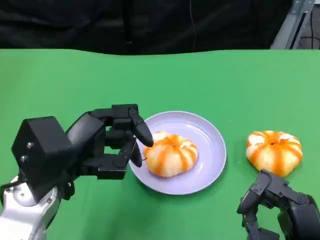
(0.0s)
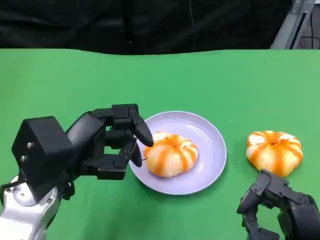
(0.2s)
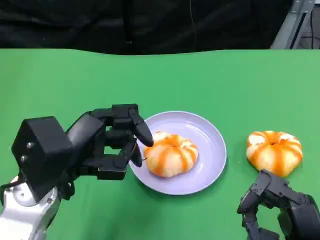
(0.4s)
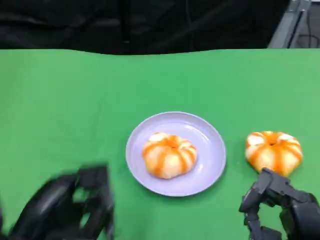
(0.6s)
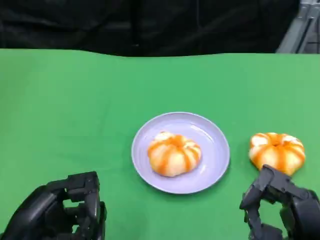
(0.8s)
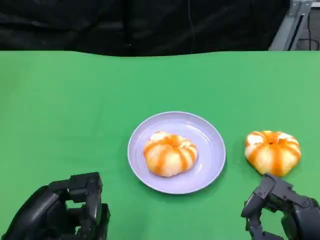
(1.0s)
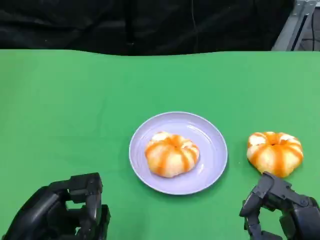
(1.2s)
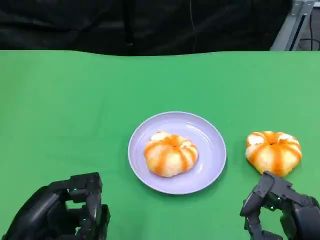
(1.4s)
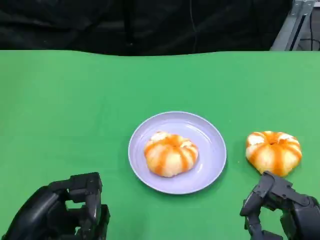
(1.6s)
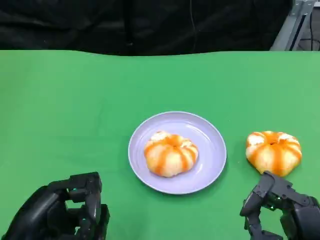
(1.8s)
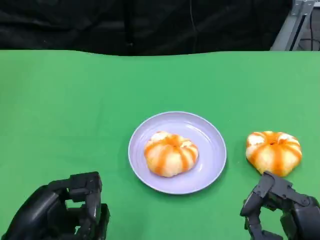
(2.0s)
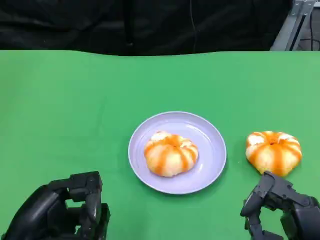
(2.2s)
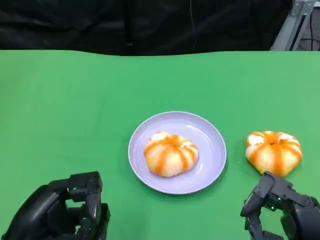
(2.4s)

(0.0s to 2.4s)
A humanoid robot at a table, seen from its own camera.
Task of the whole recording: Grasp the bread from the table and place it into the plate.
0.0s - 1.2s: The left hand is displaced backward by some 10 cm.
1.2s - 2.4s: The two hands keep their place.

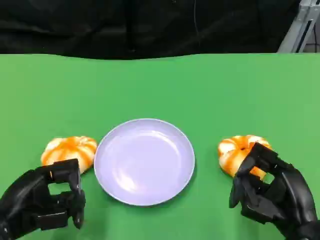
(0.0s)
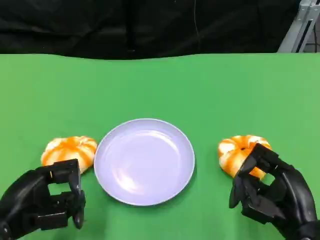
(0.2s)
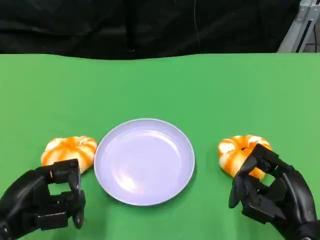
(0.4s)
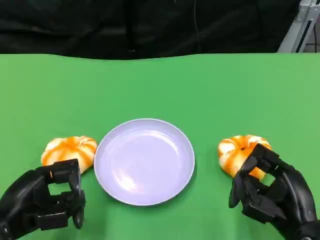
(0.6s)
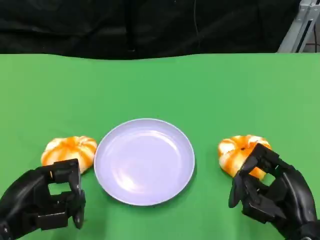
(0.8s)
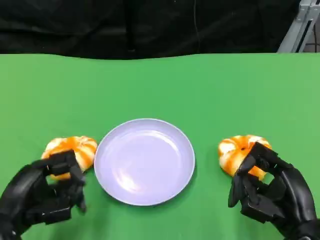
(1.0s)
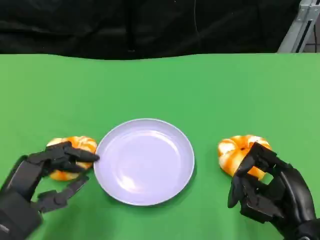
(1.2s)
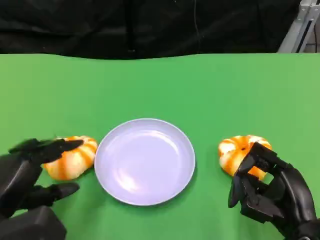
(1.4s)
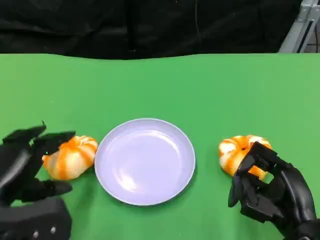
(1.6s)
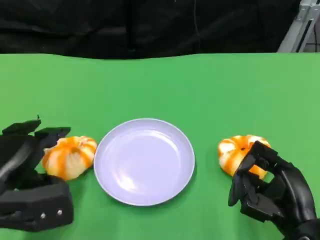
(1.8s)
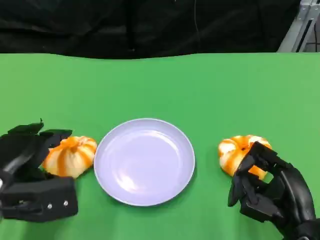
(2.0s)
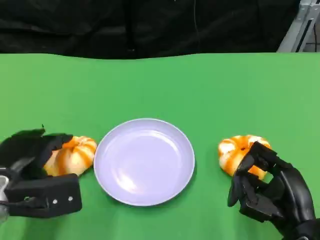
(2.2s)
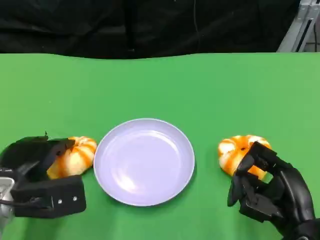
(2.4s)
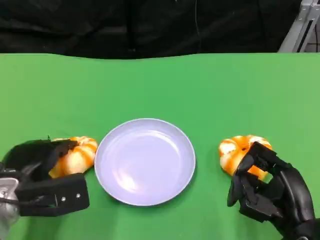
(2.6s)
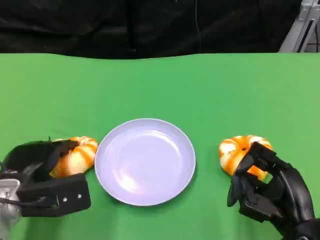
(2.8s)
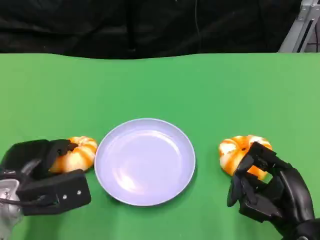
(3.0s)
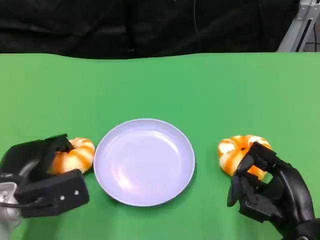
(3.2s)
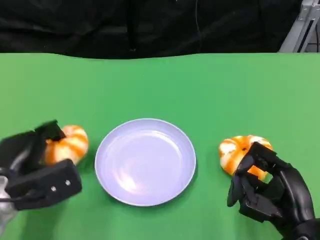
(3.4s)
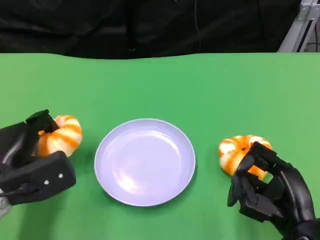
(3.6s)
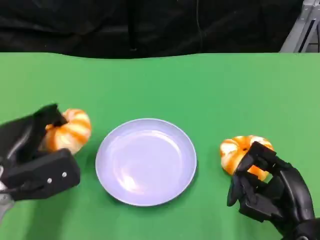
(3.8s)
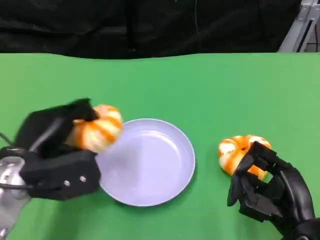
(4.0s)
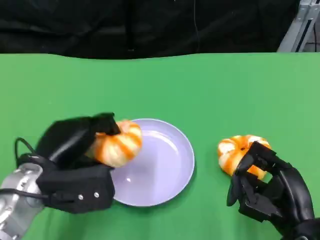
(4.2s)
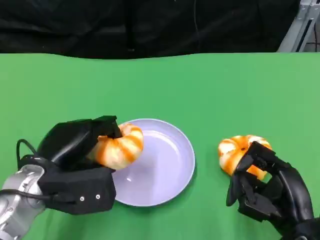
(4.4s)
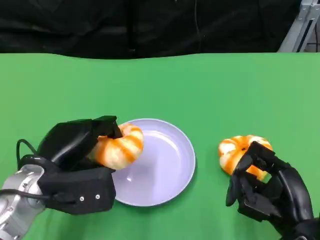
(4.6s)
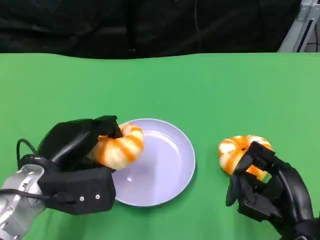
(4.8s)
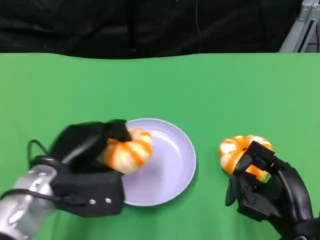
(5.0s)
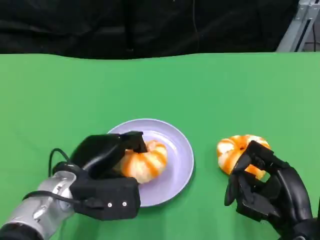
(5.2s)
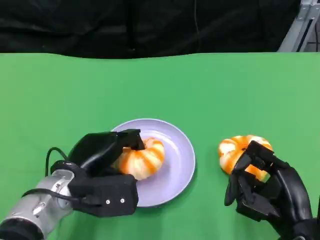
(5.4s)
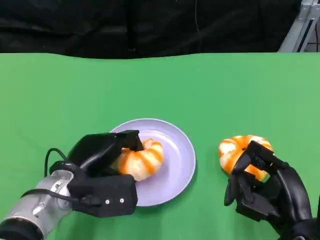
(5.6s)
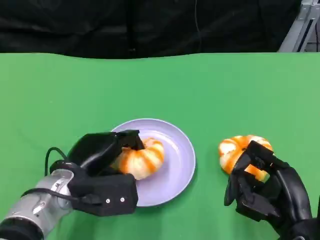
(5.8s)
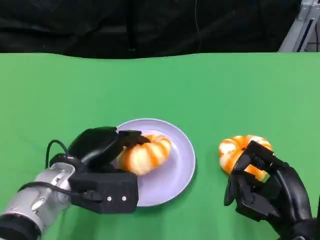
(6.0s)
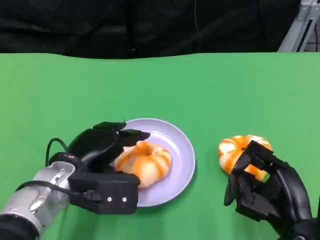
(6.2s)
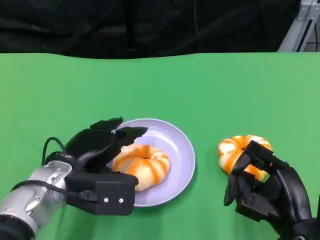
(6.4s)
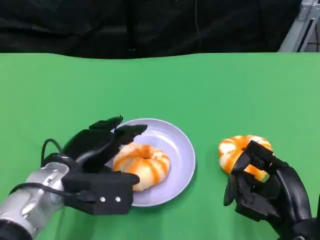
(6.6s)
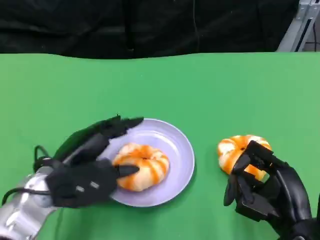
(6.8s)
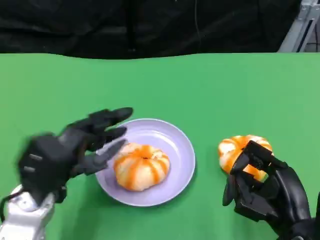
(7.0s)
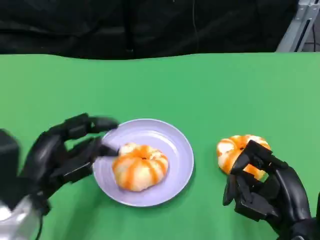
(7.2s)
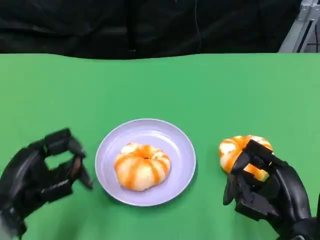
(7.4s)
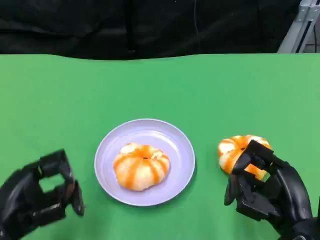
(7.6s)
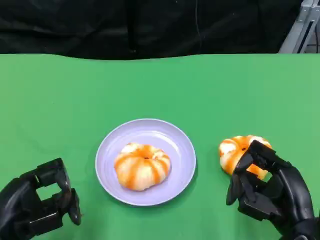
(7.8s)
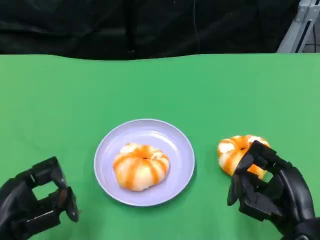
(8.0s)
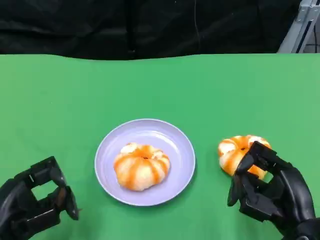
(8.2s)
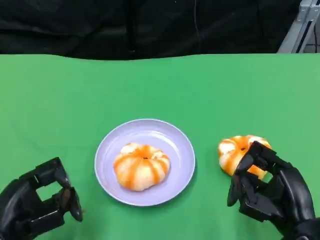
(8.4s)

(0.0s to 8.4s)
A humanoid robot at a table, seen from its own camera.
Task of the whole recording: Grasp the bread from the table and place it into the plate.
1.4s - 2.8s: The left hand heads forward, covering about 5 cm.
2.8s - 4.2s: The left hand shifts by approximately 5 cm.
4.2s - 5.6s: The left hand moves some 5 cm.
5.6s - 7.0s: The left hand ends up some 5 cm from where it was.
7.0s - 8.4s: The left hand moves backward and to the left, some 10 cm.

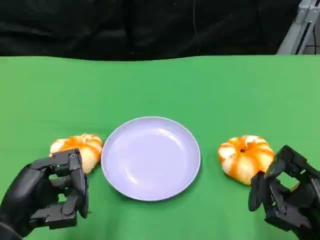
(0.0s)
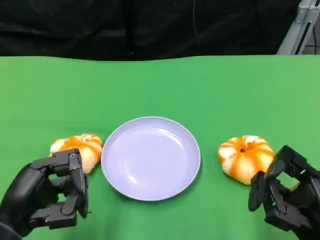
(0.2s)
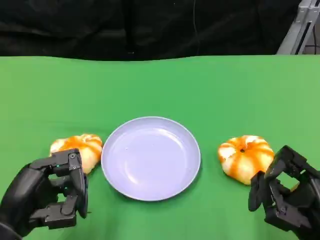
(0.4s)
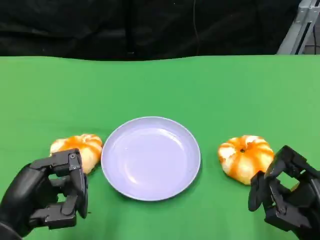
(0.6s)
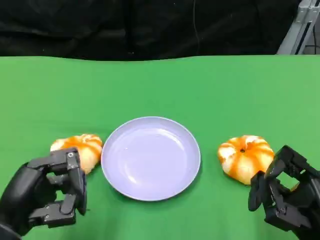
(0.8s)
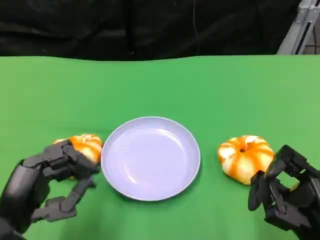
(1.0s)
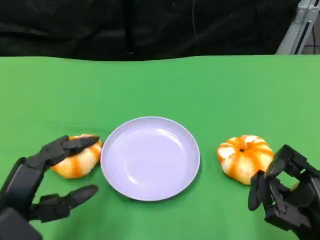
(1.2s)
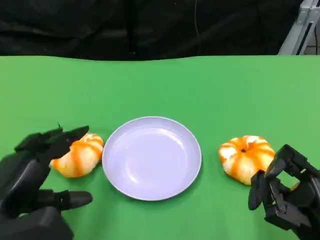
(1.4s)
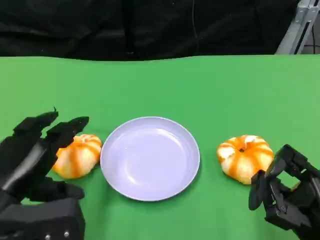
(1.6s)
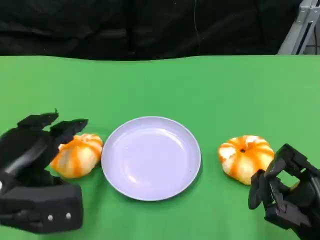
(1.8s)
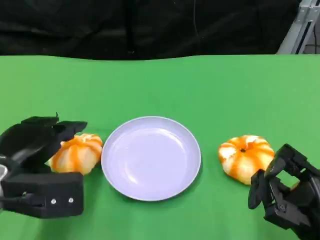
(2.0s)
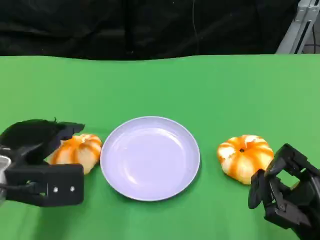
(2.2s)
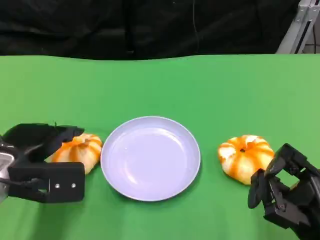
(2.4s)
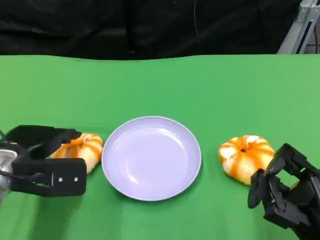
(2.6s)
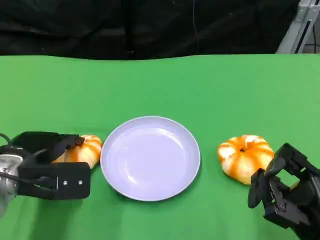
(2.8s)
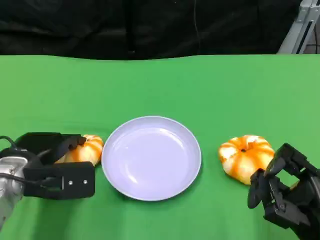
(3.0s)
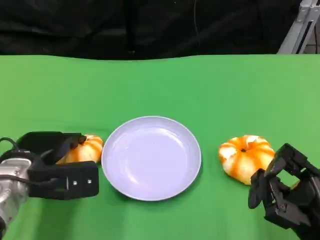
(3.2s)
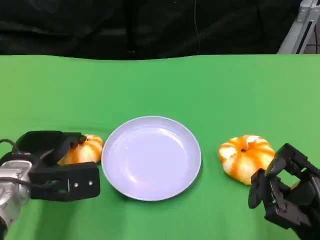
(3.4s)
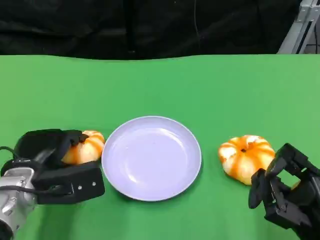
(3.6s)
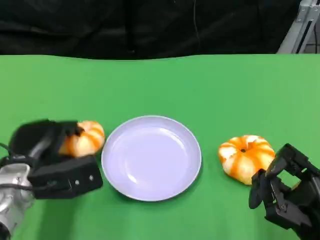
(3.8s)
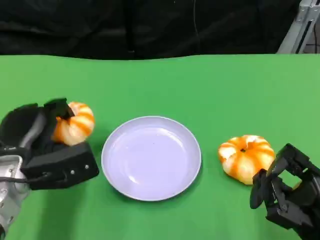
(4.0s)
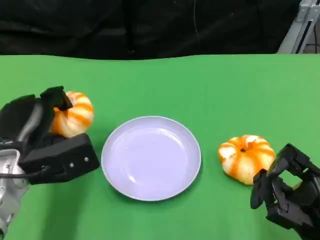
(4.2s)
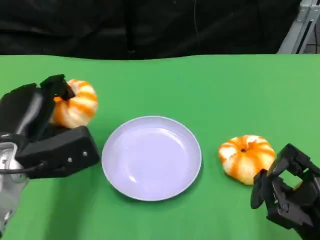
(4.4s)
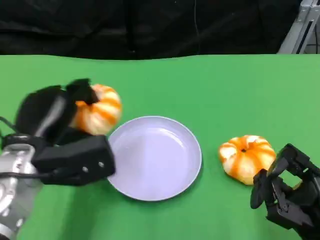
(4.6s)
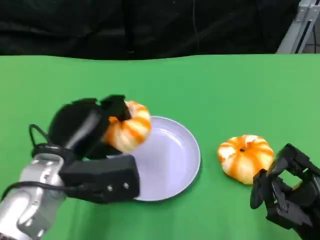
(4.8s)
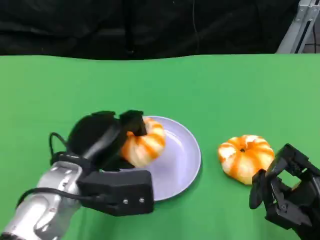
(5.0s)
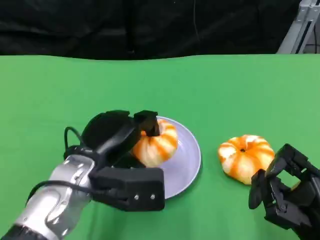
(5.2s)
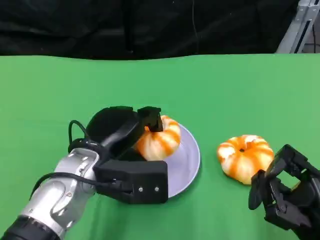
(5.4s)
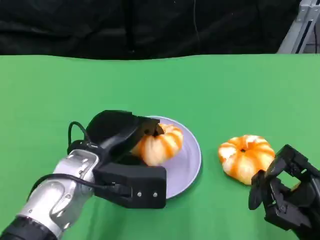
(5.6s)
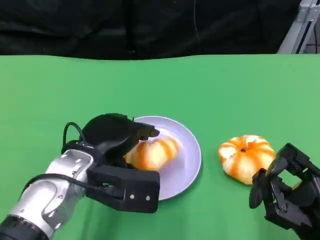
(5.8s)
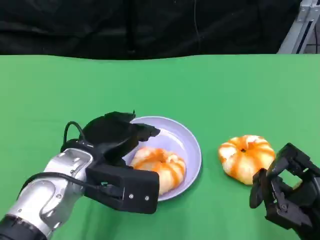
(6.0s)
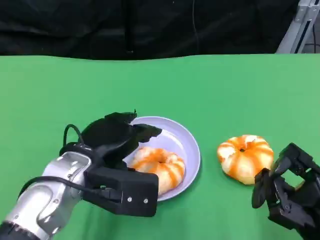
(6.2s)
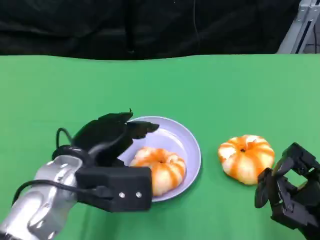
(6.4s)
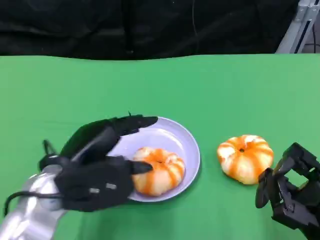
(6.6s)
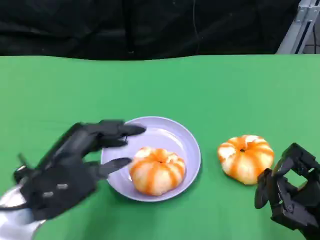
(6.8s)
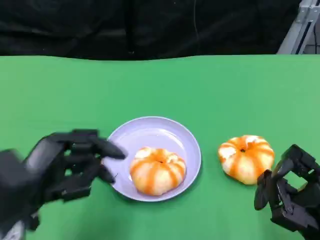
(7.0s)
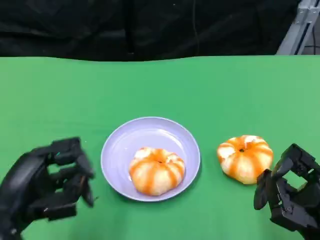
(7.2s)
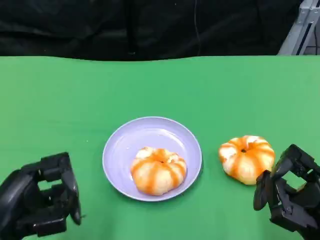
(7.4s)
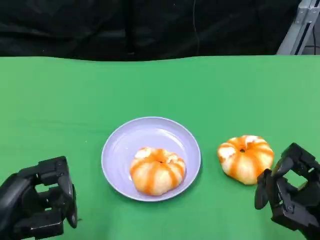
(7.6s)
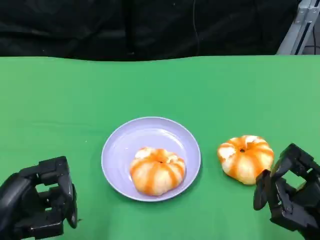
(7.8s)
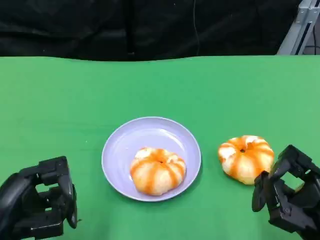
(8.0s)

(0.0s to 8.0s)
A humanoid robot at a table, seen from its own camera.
Task of the whole recording: Grasp the bread from the table and place it into the plate.
1.6s - 3.2s: The left hand heads forward and downward, covering some 10 cm.
3.2s - 4.8s: The left hand goes roughly 5 cm to the right.
6.4s - 8.0s: The left hand heads to the left and backward, covering roughly 15 cm.

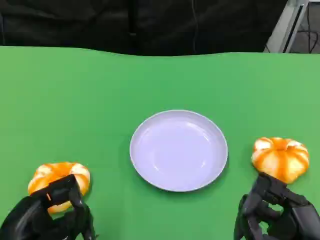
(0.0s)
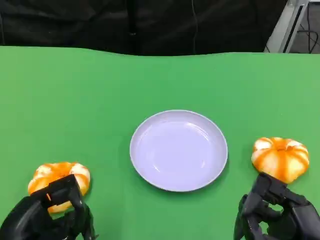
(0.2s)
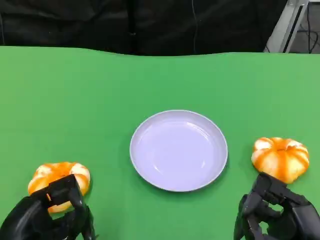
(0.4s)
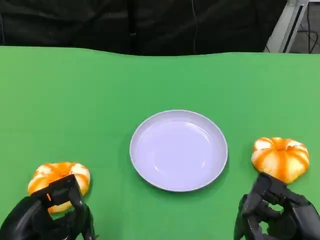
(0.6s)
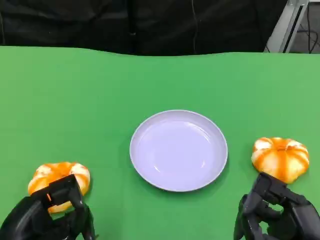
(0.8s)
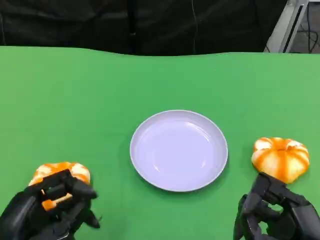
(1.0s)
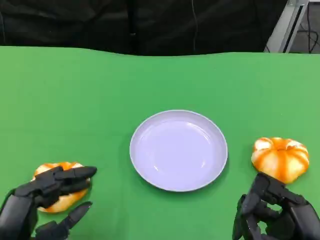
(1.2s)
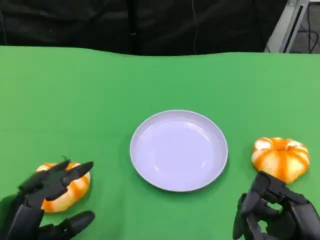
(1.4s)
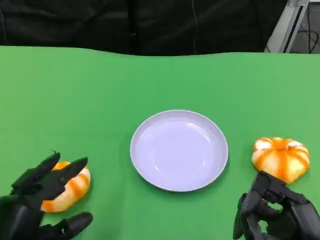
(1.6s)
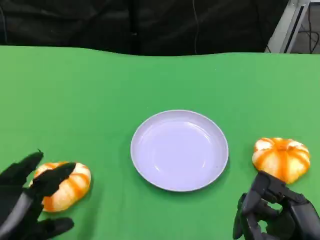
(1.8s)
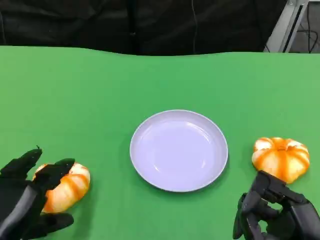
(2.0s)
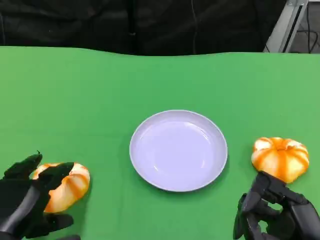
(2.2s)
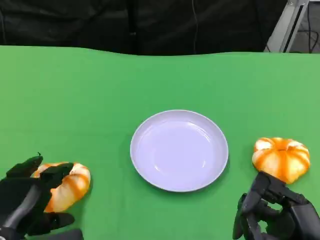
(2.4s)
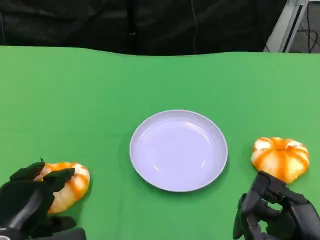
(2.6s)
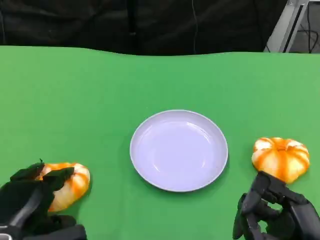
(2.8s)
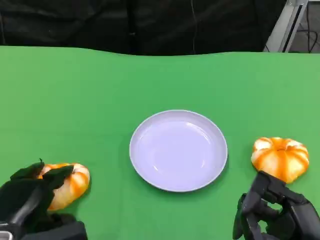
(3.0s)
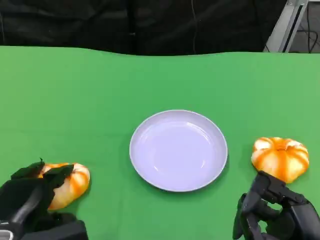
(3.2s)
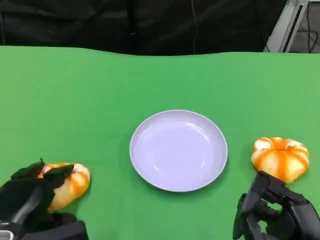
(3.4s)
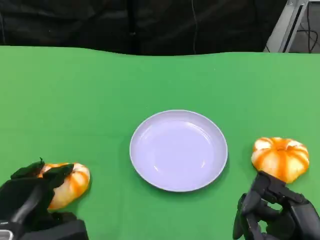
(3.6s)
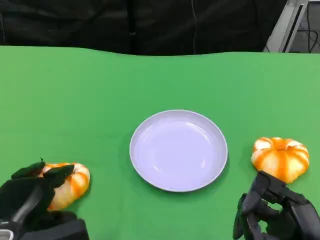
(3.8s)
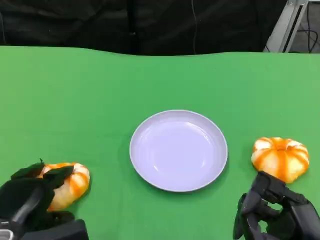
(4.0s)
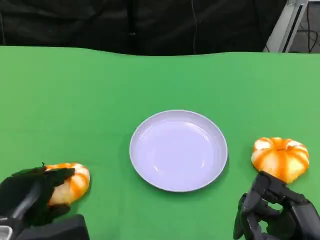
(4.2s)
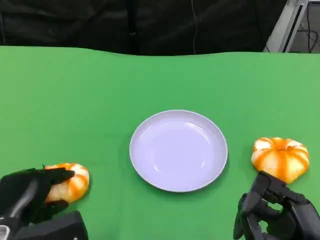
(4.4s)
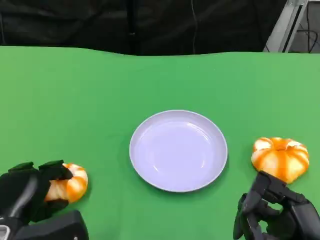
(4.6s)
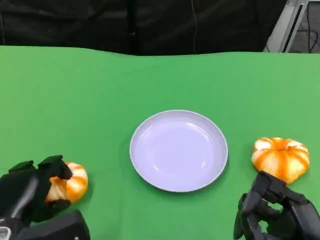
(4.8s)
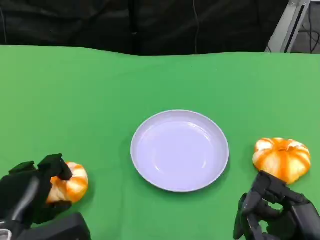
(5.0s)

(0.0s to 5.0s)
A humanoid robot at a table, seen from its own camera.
Task of the whole recording: Grasp the bread from the table and place it into the plate.
1.6s - 3.4s: The left hand moves forward, about 5 cm.
3.4s - 5.0s: The hands stay close to where they were, moving slightly.
